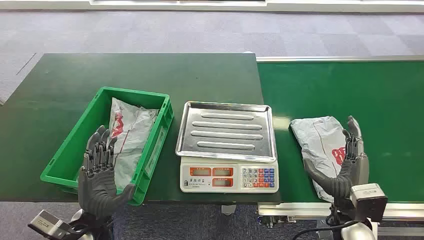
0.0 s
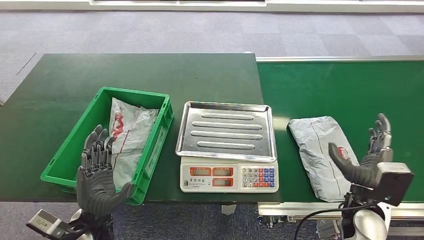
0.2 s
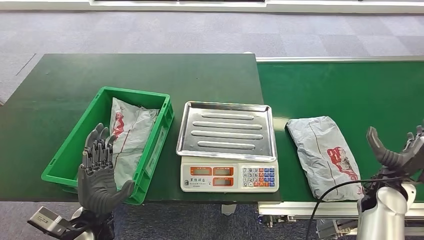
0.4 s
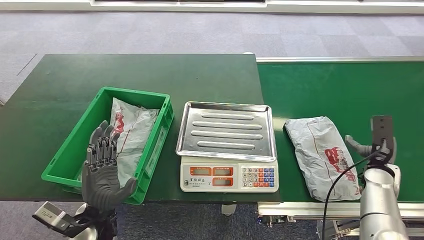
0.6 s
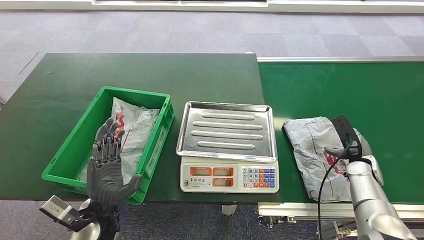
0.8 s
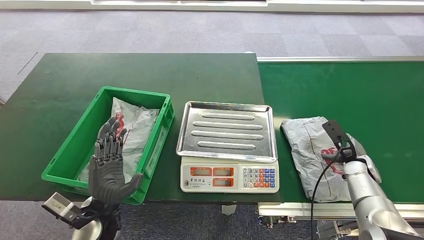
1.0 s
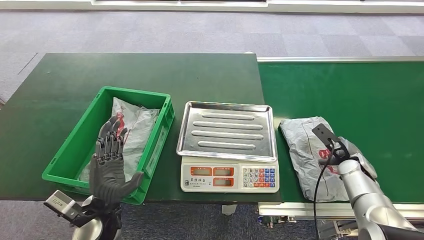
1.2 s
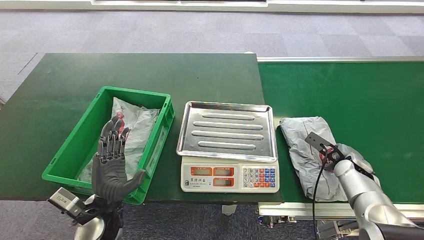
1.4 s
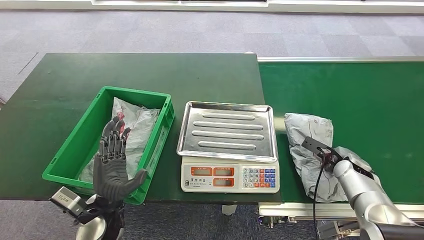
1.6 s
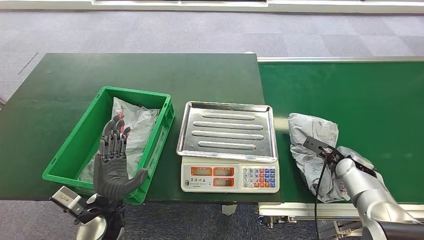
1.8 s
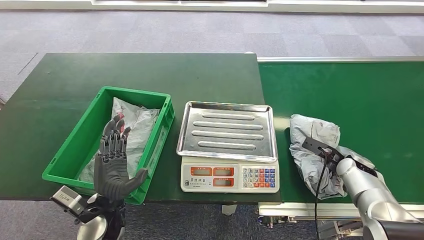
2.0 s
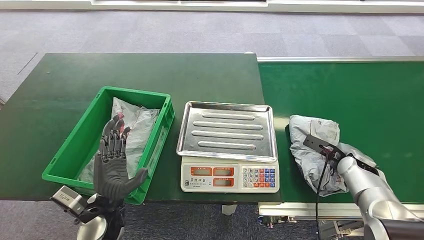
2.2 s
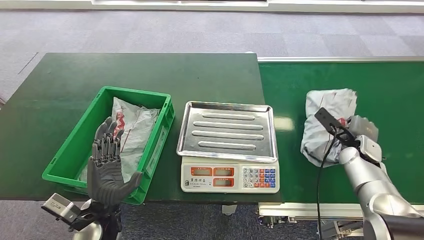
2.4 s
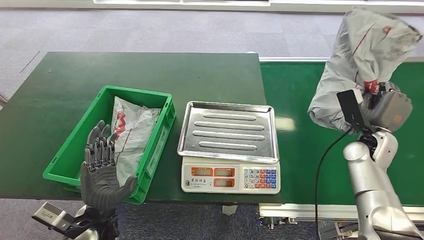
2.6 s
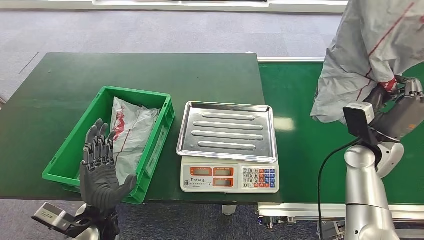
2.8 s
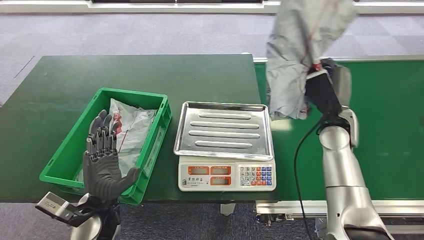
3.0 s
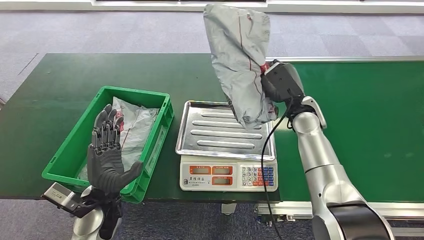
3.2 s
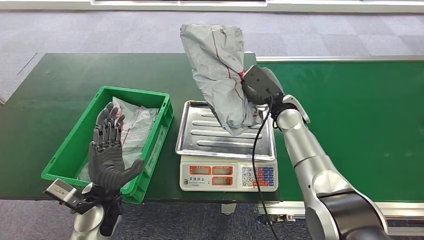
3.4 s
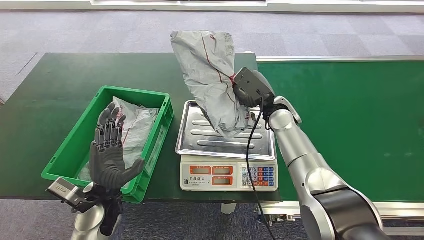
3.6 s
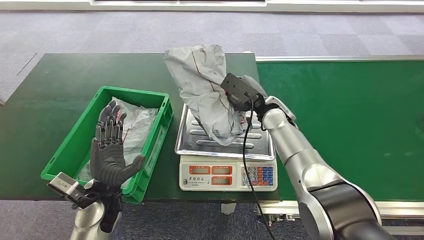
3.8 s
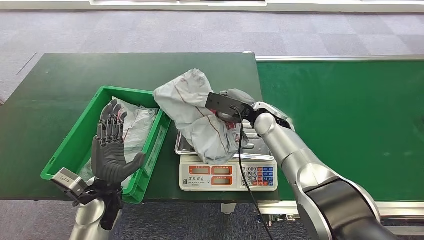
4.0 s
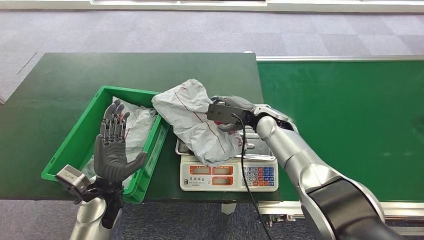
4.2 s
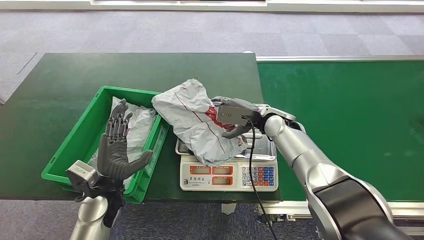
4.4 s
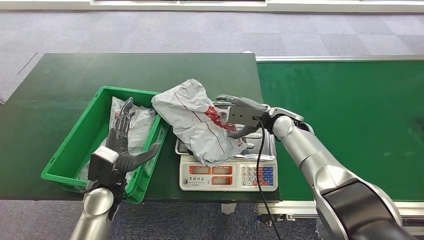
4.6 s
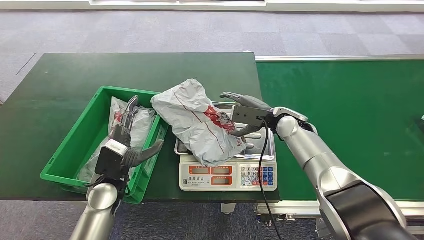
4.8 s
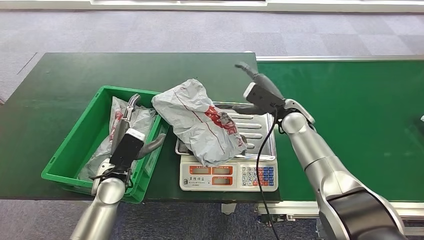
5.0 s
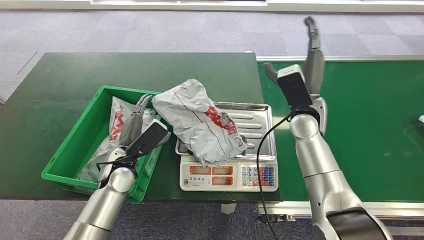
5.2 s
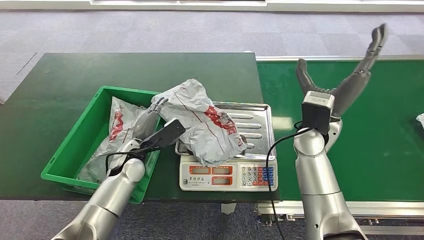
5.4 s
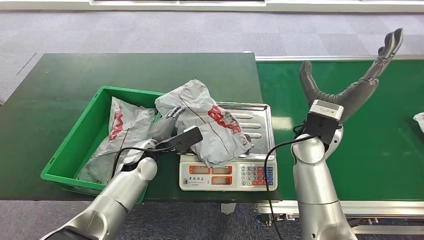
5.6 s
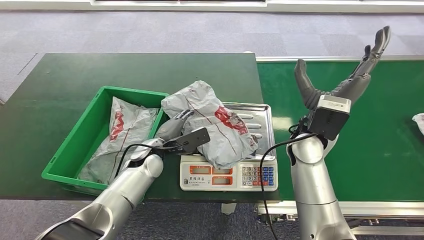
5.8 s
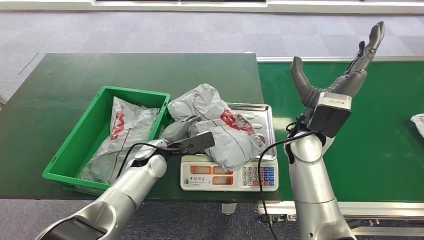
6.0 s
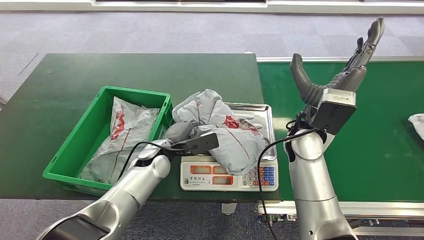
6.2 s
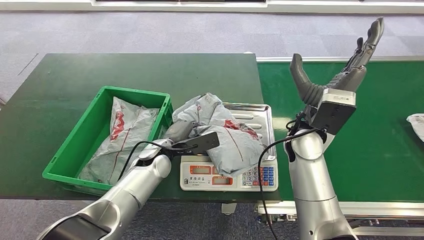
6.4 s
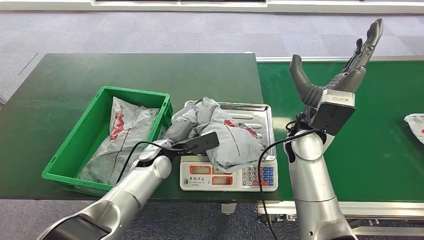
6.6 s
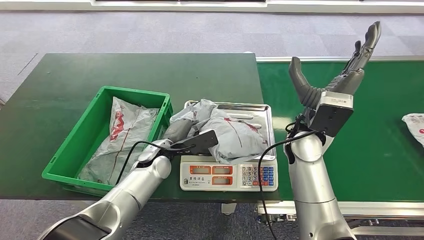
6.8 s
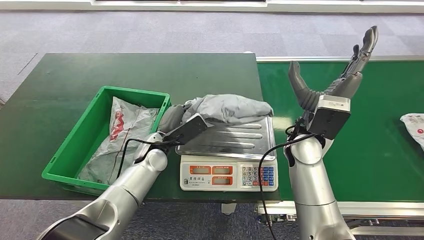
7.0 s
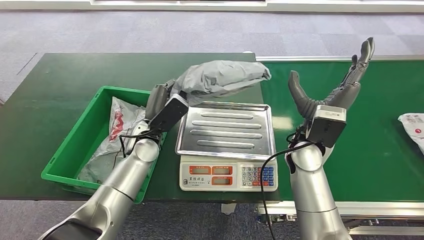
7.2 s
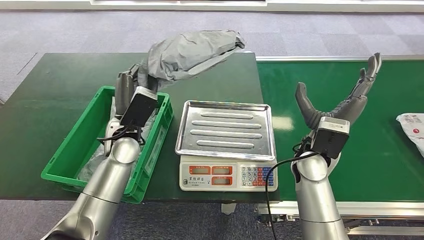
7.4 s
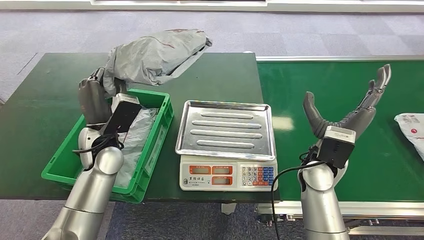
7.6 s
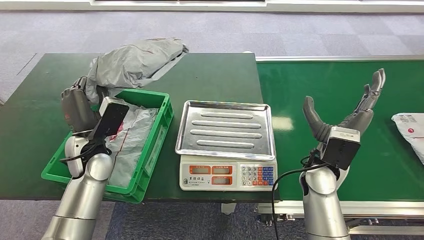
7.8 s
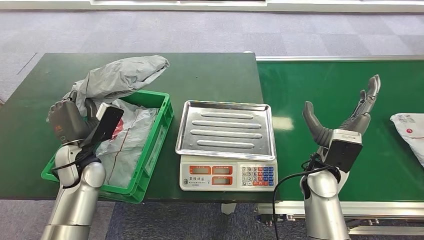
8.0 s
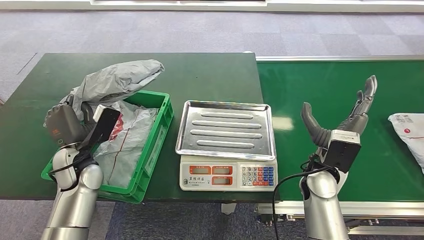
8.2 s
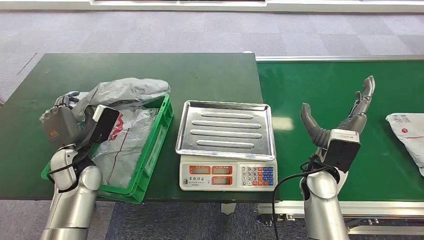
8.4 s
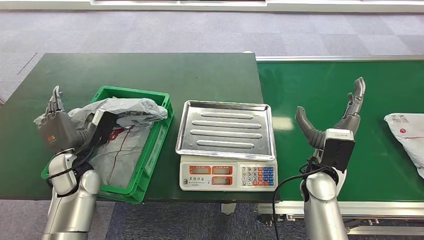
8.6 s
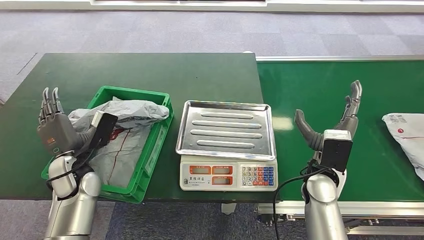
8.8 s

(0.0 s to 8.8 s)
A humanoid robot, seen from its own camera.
Task of the whole recording: Weigh the package on the weighing device and place it in the left basket.
Step, 0.0 s - 2.8 s: Pick up the package from the conveyor belt.
Step, 3.0 s - 4.8 s: Place the package onto the inbound machine.
Step, 5.0 s - 7.6 s: Pick up the package from the inbound machine.
Step, 7.8 s - 8.8 s: Place the package into the parcel locker.
7.4 s - 8.8 s: The right hand ends up roughly 5 cm from where it was. Meanwhile the left hand moves to the left, downward and backward, about 15 cm.
